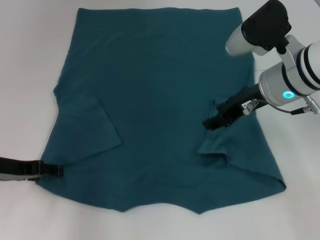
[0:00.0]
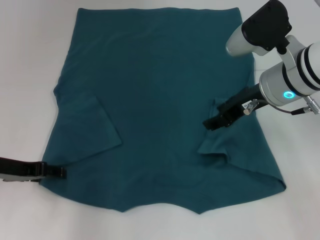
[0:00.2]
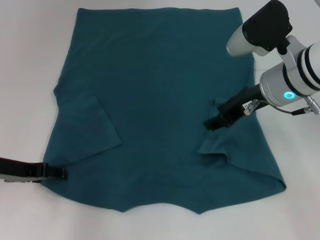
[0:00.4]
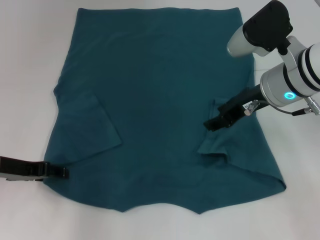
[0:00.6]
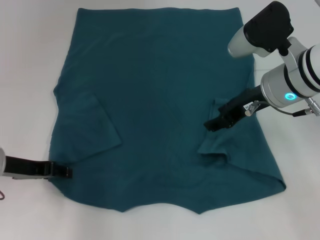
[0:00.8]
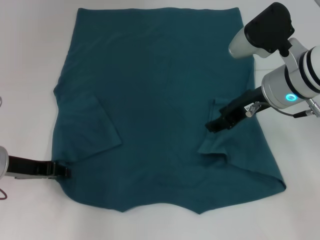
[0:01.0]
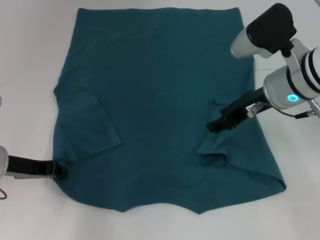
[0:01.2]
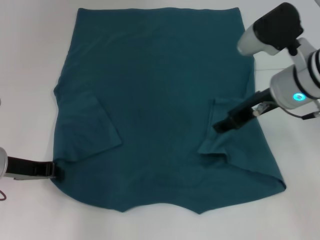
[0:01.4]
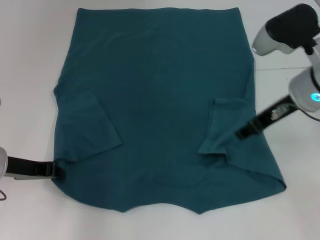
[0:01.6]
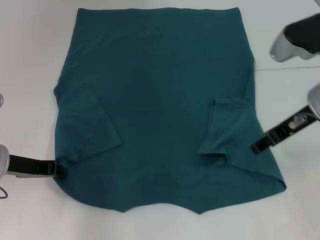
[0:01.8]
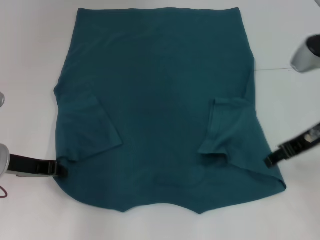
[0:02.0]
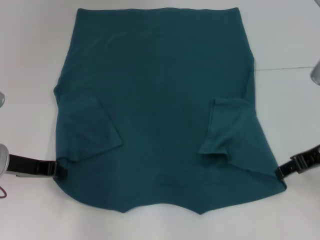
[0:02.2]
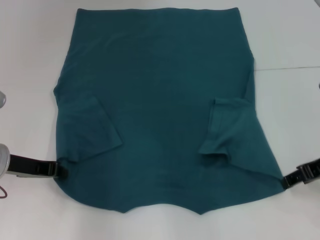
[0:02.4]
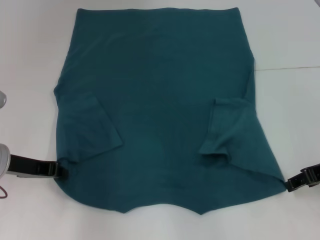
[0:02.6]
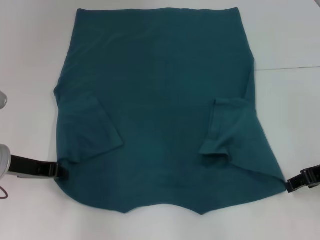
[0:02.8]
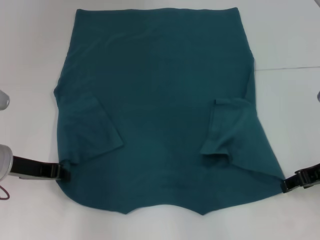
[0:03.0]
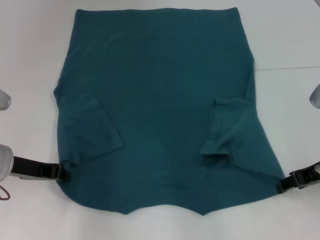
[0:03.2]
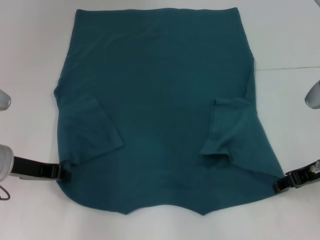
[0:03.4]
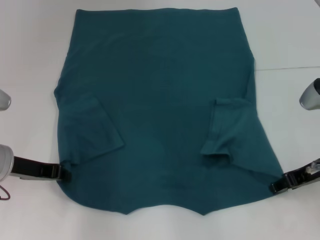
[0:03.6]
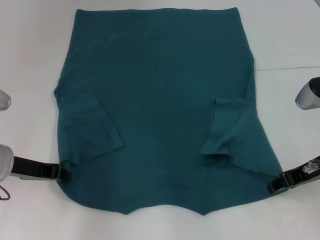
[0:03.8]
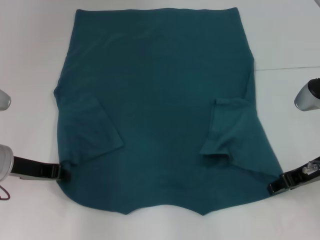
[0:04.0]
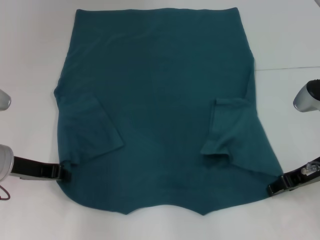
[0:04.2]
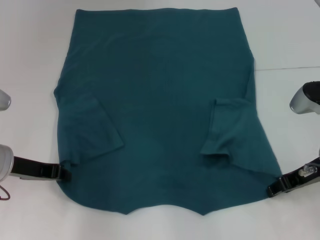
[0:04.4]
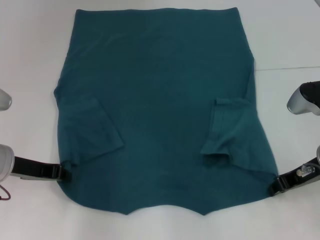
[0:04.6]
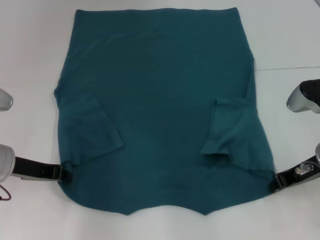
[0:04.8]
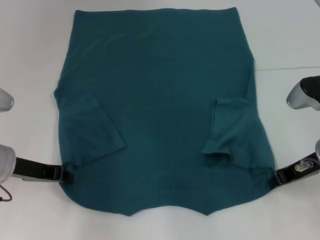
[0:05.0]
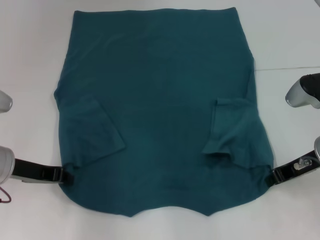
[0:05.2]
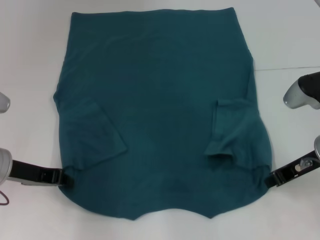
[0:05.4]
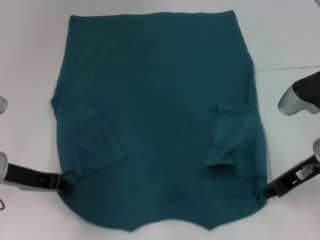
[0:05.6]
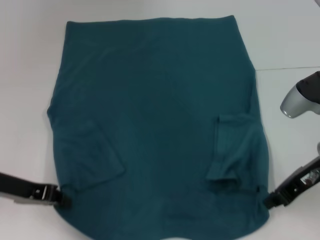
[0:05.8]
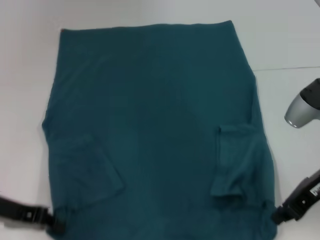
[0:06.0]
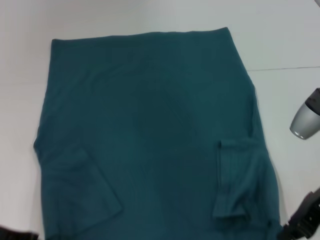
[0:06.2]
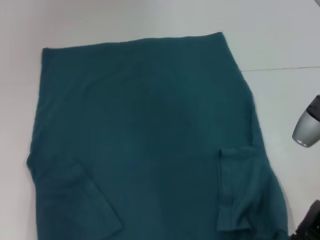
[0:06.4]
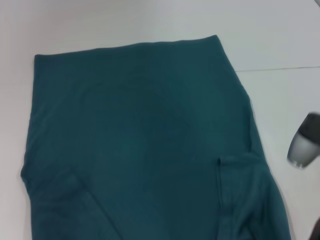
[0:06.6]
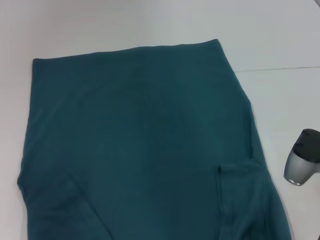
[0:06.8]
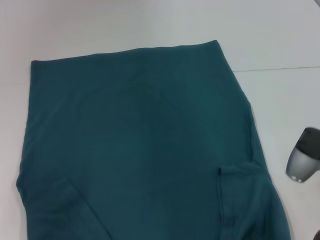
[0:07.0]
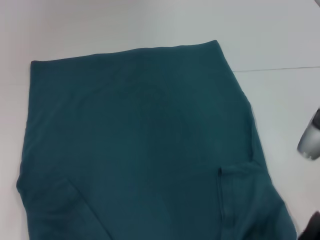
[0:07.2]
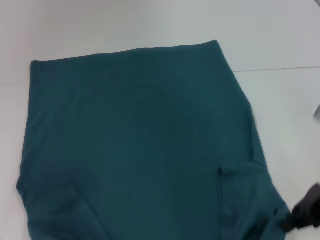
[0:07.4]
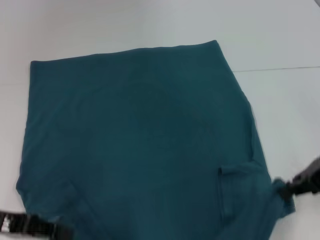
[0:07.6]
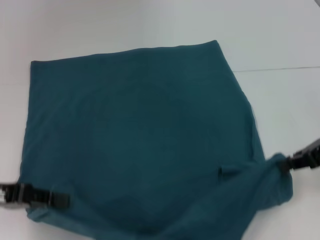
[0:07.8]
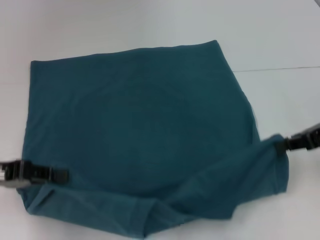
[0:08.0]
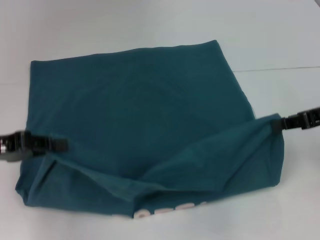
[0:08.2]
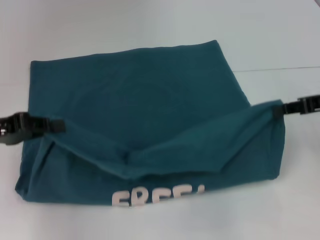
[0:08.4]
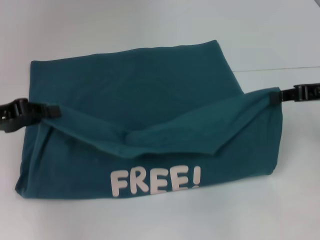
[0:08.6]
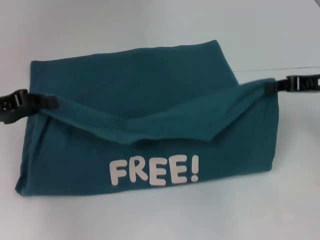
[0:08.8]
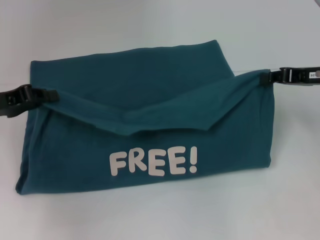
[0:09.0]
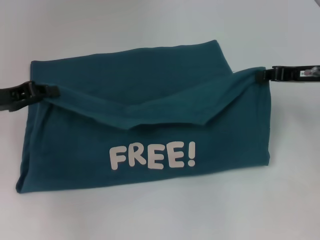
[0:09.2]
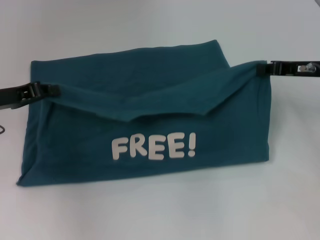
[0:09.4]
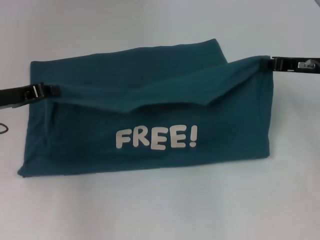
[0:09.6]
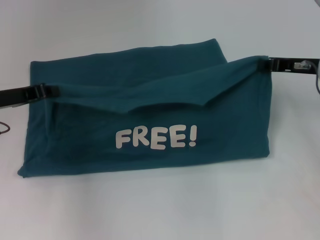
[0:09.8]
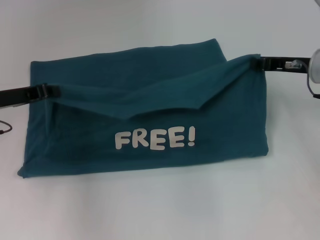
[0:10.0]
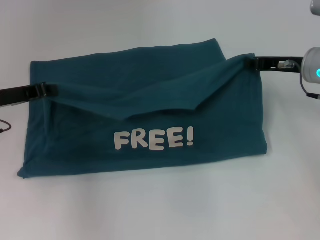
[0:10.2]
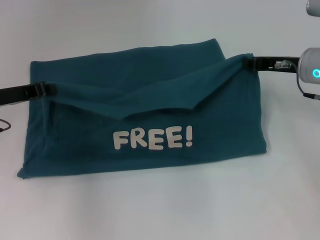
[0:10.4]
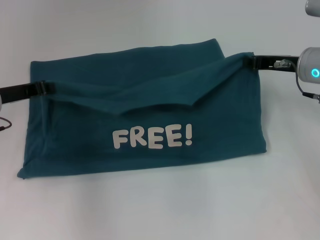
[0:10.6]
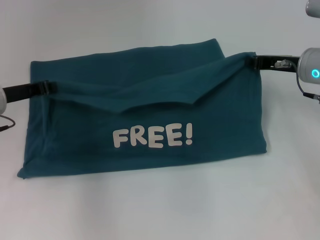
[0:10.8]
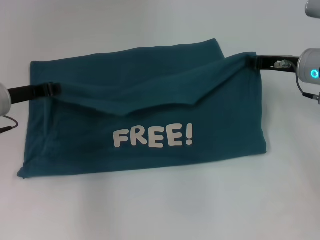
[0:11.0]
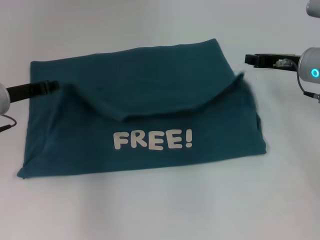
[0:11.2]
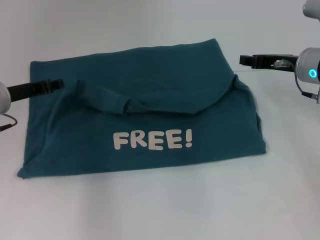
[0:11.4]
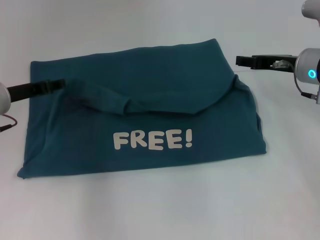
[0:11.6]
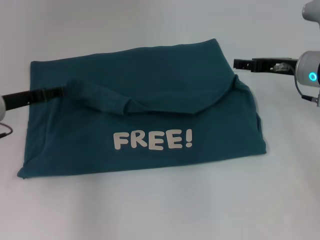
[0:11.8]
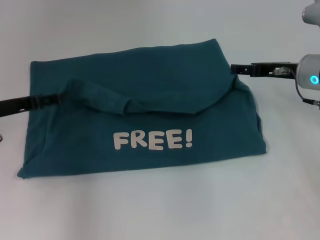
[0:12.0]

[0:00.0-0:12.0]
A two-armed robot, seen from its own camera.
Step, 0:01.8 to 0:05.4: Grab the bottom right corner with your right hand.
Step, 0:05.6 to 0:11.6: Fold the clothes to the left.
Step, 0:05.6 to 0:11.6: Fold the clothes to the right.
0:00.0 to 0:01.6: The left gripper closes.
0:01.6 to 0:03.0: The right gripper heads to the right, backward and downward, covering about 10 cm.
0:03.0 to 0:04.4: The grippers stay close to where they were, moving slightly.
0:04.4 to 0:06.0: The right gripper closes up; the left gripper shifts by about 5 cm.
0:07.6 to 0:09.0: Both grippers travel together forward, roughly 10 cm.
0:09.0 to 0:10.4: The left gripper shifts by some 5 cm, while the right gripper shifts by some 5 cm.
0:10.4 to 0:12.0: The right gripper opens. The left gripper opens up.

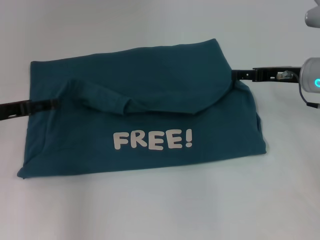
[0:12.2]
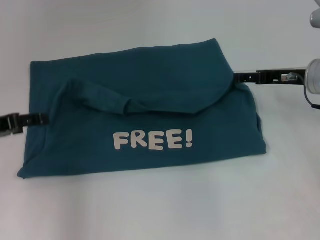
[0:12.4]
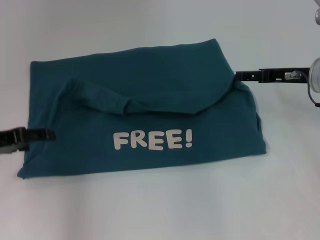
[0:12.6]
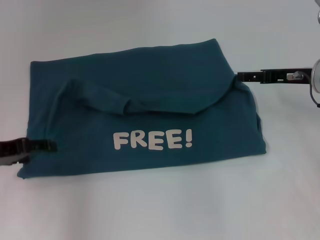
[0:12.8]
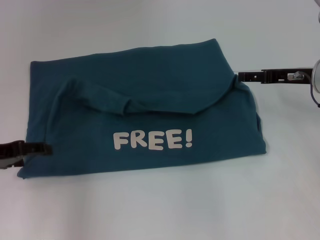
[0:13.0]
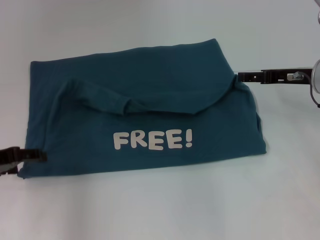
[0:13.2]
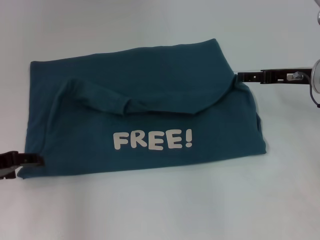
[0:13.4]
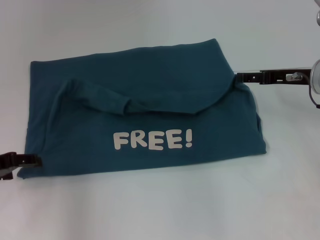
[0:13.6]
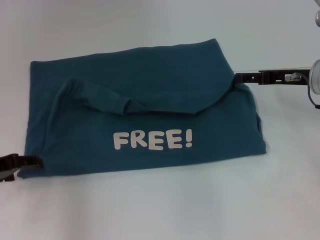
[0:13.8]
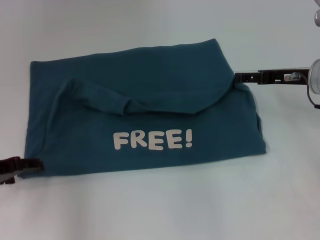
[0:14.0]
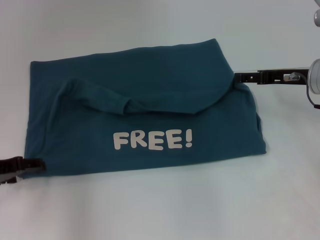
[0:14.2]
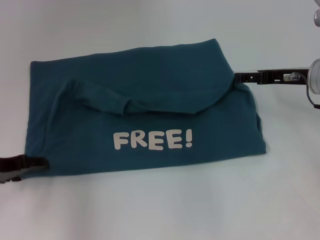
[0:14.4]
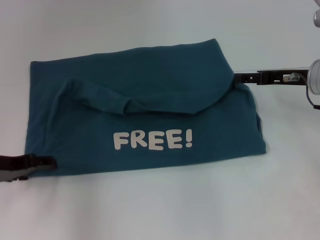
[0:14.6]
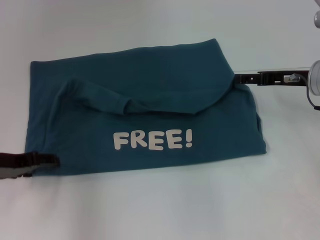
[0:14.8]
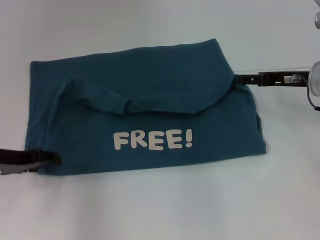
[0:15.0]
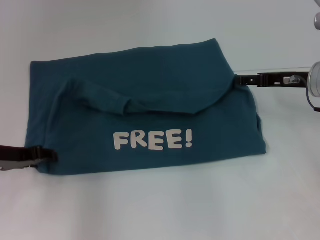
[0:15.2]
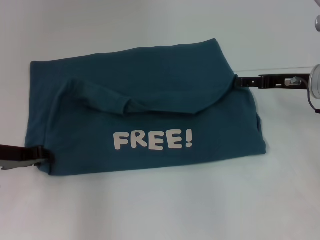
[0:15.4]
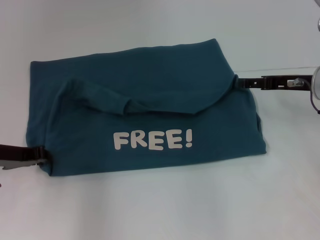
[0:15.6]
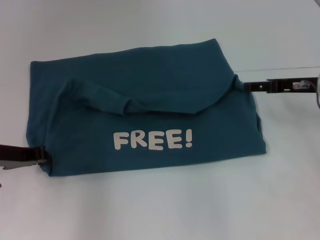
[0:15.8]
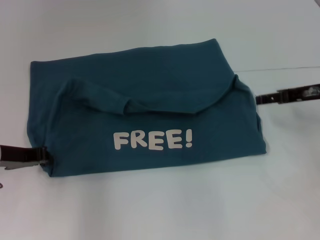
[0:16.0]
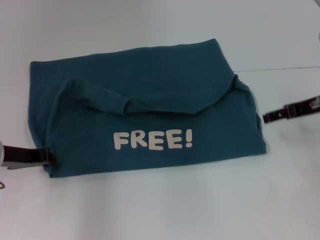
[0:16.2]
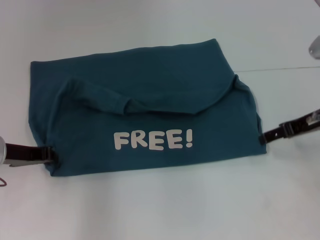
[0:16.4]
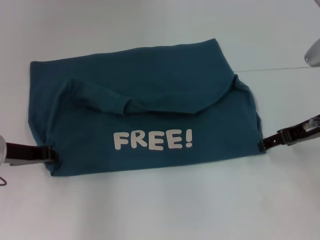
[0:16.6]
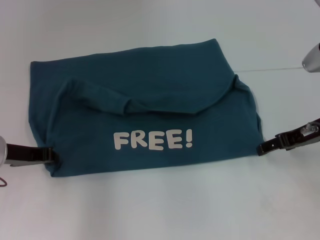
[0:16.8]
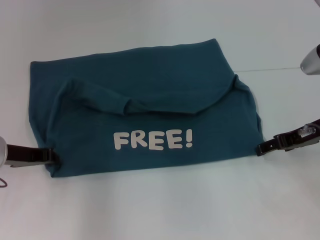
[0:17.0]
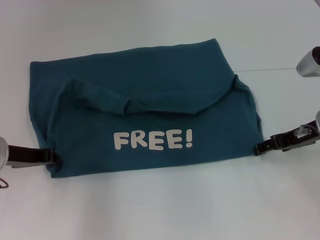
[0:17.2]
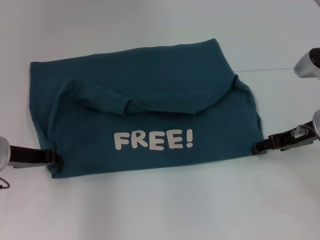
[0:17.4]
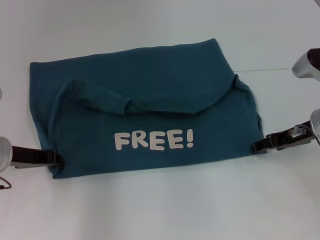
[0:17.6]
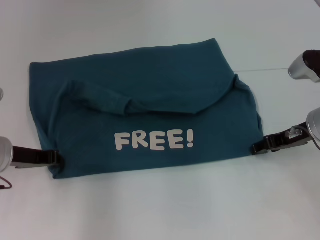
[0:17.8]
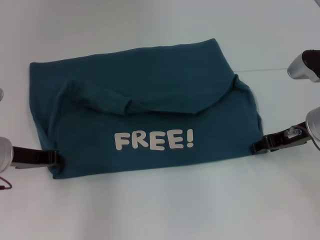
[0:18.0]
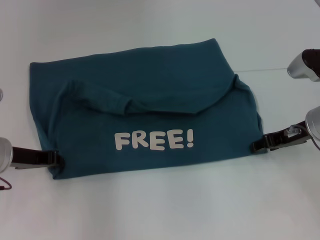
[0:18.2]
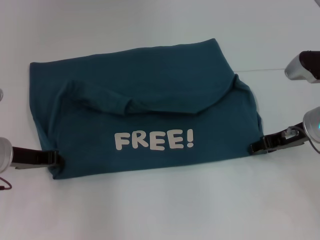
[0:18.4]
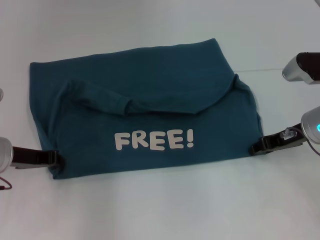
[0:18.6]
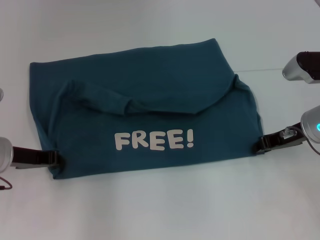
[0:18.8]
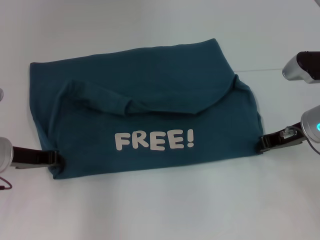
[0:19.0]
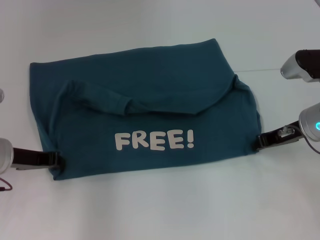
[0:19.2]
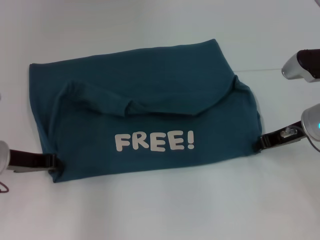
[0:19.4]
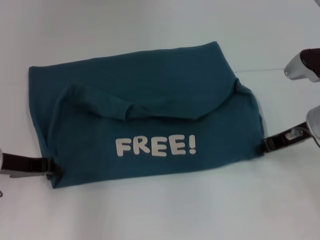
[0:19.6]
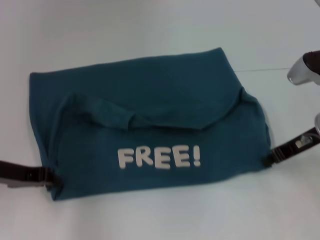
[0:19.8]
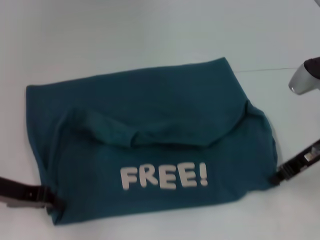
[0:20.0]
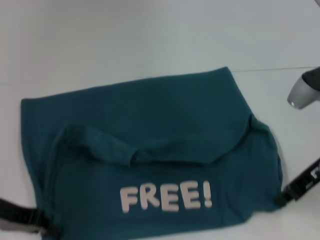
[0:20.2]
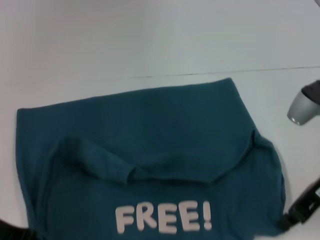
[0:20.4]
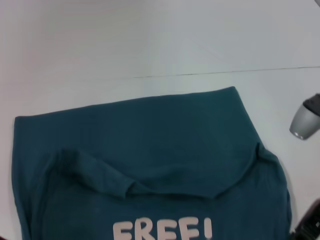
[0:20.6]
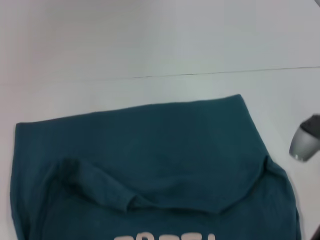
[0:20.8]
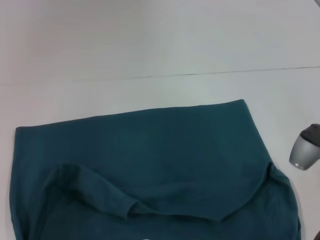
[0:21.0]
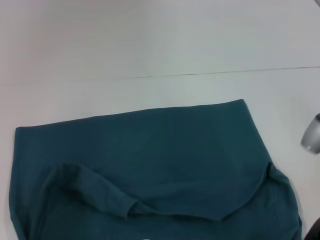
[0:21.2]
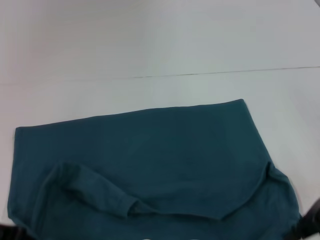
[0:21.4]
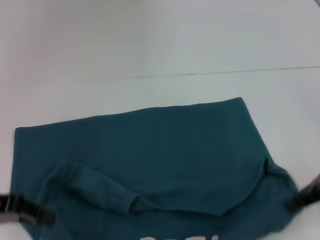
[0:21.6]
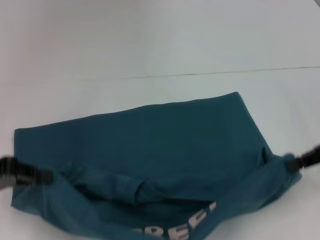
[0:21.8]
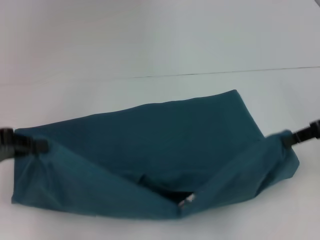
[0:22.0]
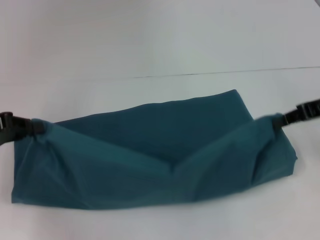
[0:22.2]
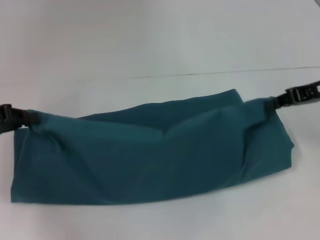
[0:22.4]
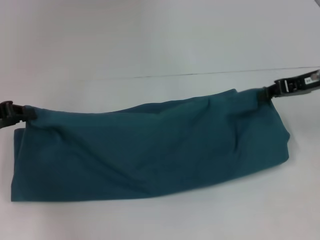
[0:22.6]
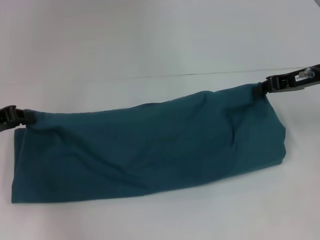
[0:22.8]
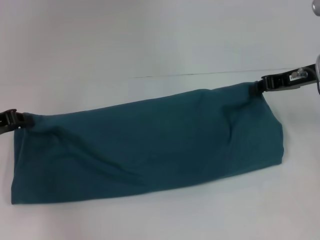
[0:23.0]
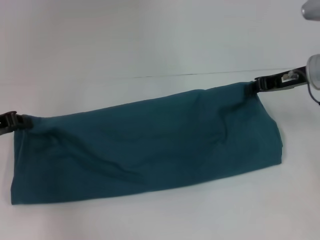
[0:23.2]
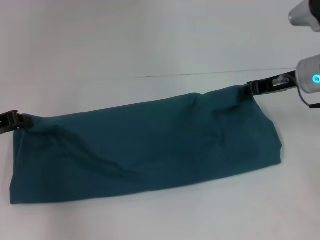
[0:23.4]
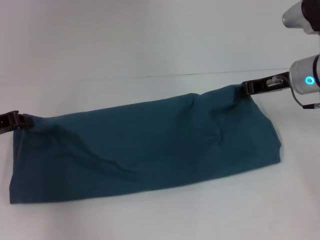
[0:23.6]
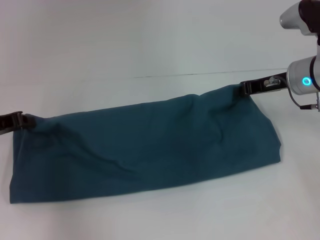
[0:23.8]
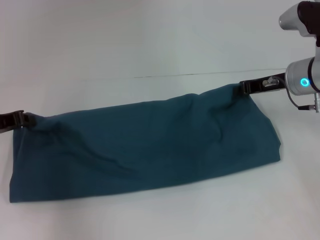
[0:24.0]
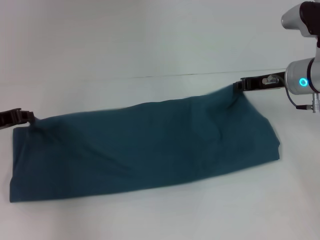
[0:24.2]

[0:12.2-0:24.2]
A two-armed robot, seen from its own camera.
Step, 0:12.2 to 0:21.0: Pull the clothes with your left hand.
Step, 0:12.2 to 0:21.0: Pull the clothes with your right hand.
0:12.2 to 0:13.8: The left gripper moves approximately 5 cm.
0:13.8 to 0:15.2: There are only small adjustments of the grippers.
0:15.2 to 0:16.6: The left gripper closes.
0:16.6 to 0:18.2: The grippers make only small movements.
0:18.2 to 0:19.8: The right gripper closes up.
0:19.8 to 0:21.2: The grippers both shift backward by roughly 5 cm.
0:21.2 to 0:22.6: The left gripper shifts some 10 cm forward. The right gripper goes some 15 cm forward and upward.
0:22.6 to 0:24.2: The right gripper shifts some 5 cm to the left.
